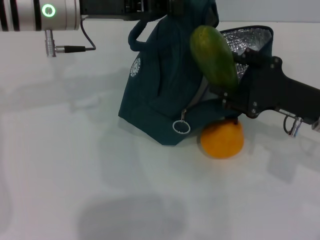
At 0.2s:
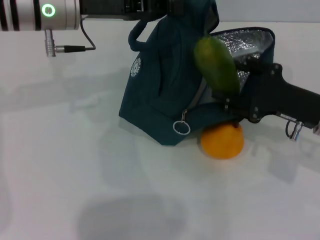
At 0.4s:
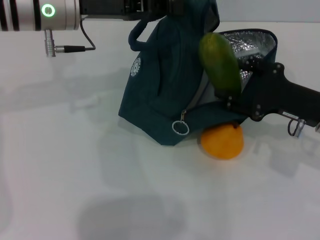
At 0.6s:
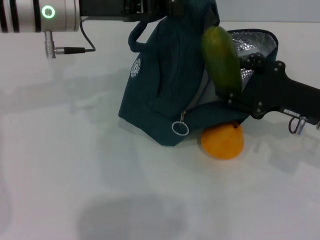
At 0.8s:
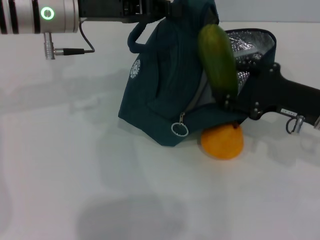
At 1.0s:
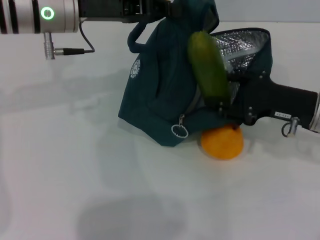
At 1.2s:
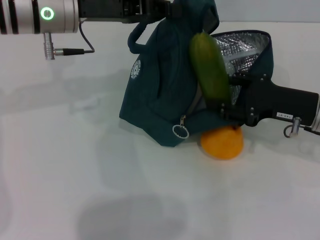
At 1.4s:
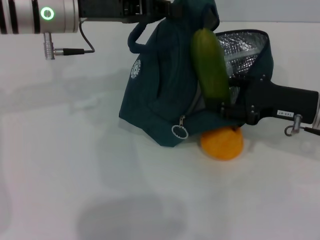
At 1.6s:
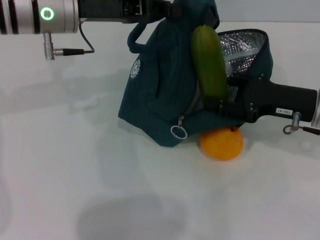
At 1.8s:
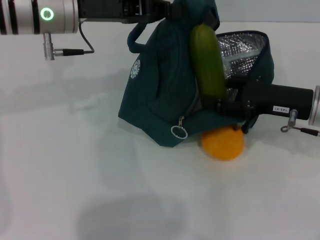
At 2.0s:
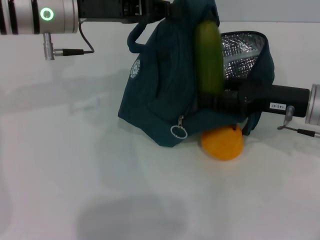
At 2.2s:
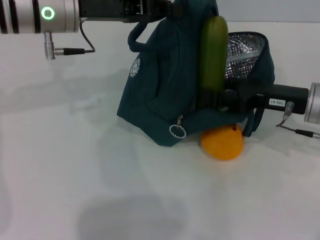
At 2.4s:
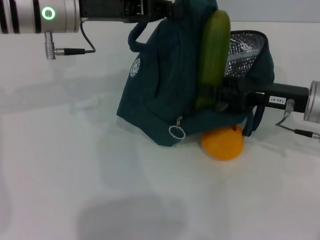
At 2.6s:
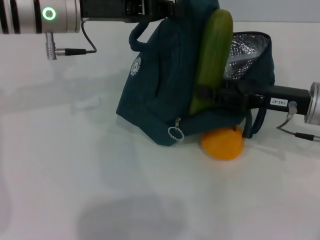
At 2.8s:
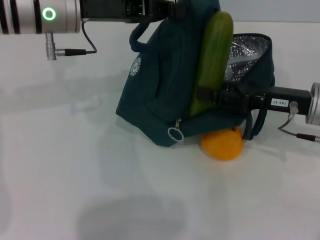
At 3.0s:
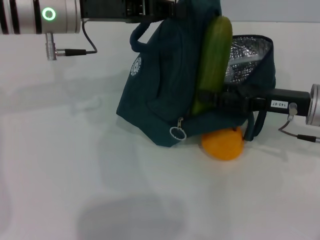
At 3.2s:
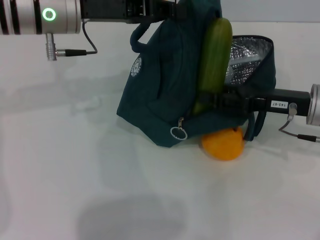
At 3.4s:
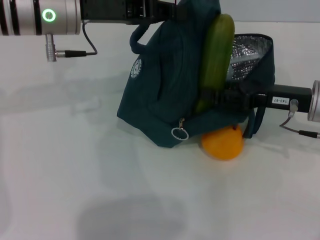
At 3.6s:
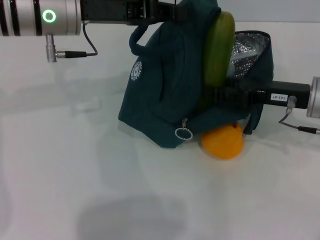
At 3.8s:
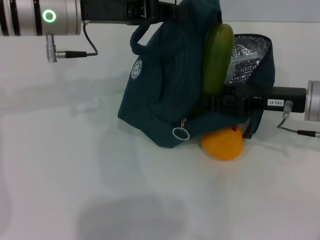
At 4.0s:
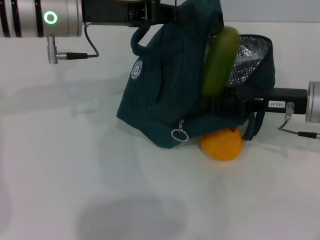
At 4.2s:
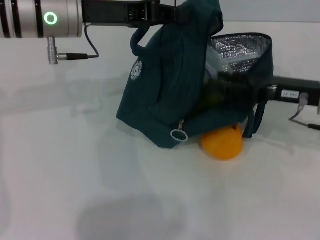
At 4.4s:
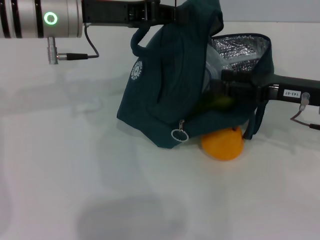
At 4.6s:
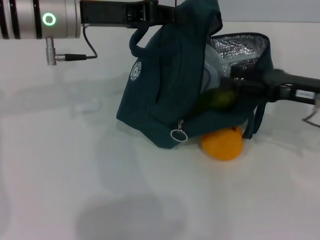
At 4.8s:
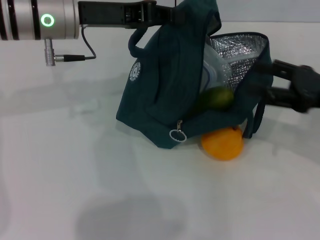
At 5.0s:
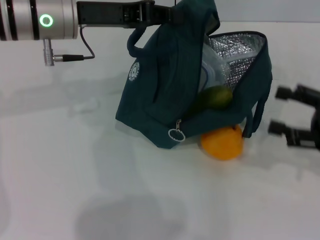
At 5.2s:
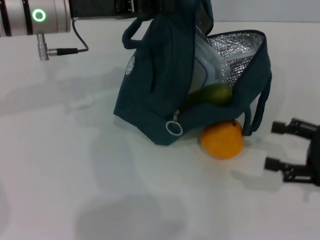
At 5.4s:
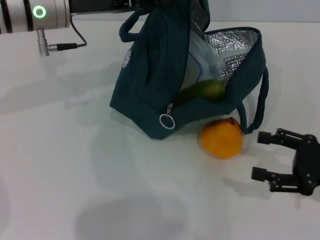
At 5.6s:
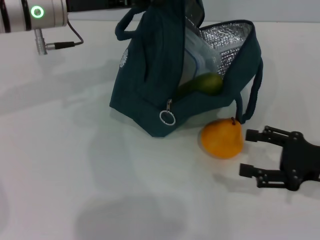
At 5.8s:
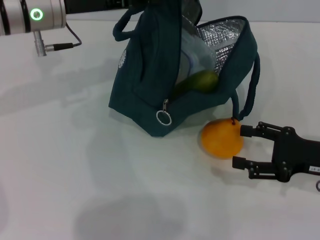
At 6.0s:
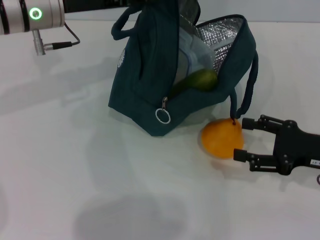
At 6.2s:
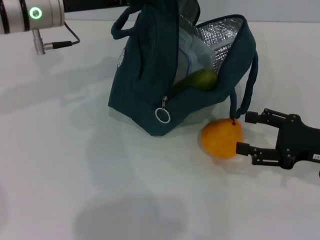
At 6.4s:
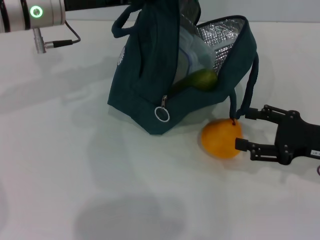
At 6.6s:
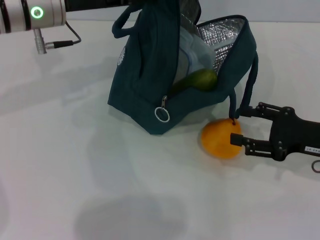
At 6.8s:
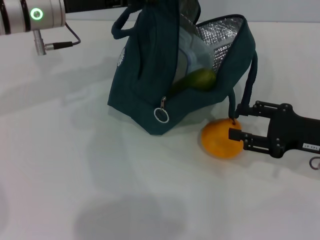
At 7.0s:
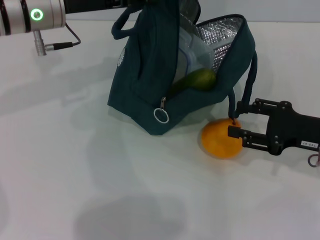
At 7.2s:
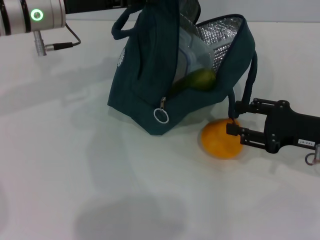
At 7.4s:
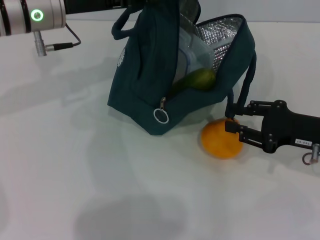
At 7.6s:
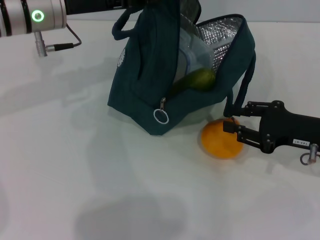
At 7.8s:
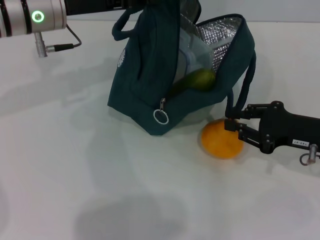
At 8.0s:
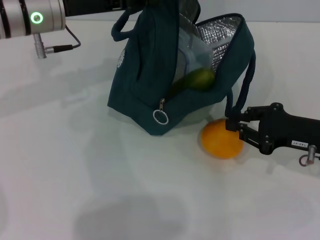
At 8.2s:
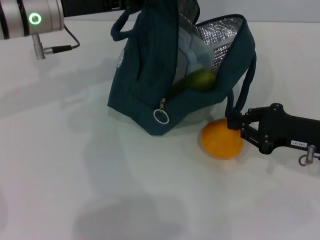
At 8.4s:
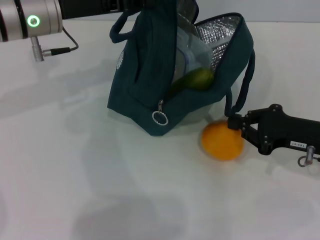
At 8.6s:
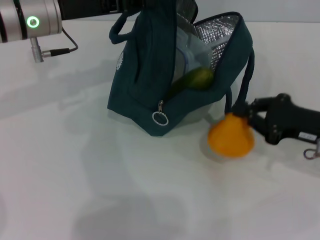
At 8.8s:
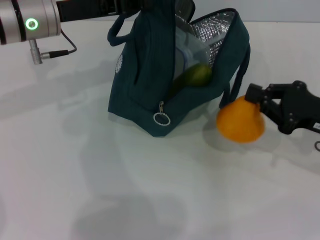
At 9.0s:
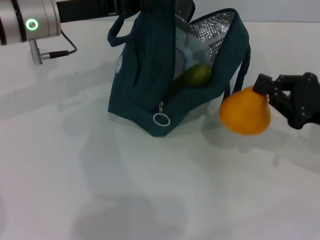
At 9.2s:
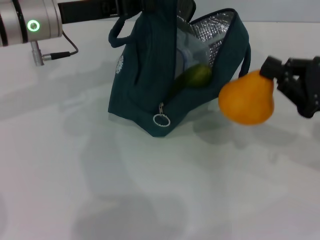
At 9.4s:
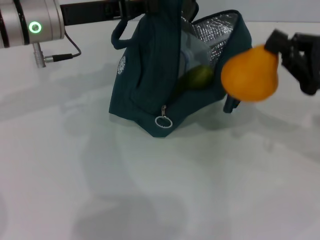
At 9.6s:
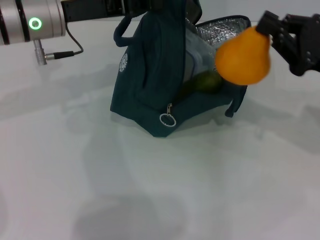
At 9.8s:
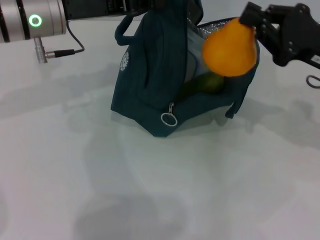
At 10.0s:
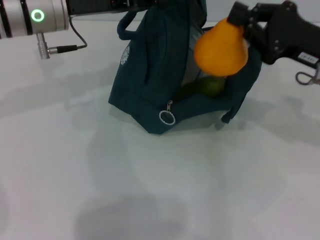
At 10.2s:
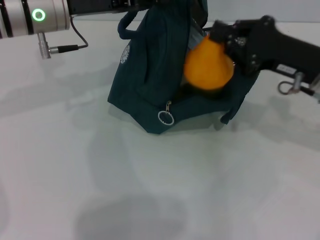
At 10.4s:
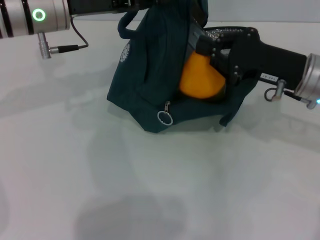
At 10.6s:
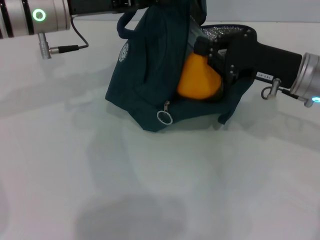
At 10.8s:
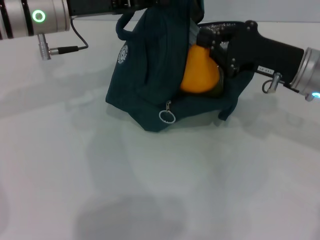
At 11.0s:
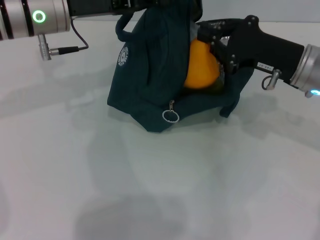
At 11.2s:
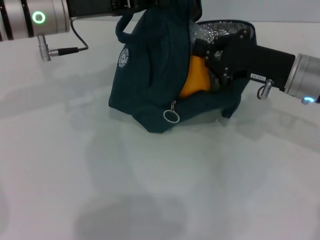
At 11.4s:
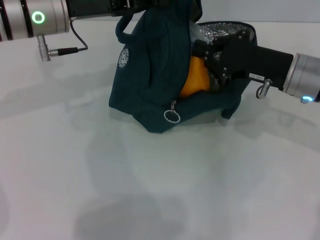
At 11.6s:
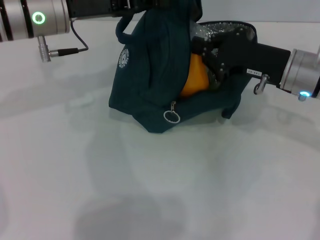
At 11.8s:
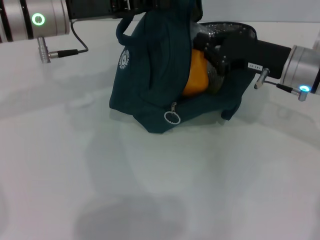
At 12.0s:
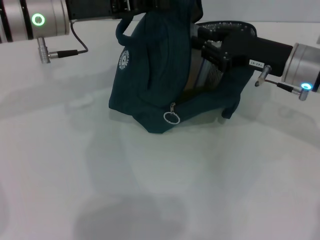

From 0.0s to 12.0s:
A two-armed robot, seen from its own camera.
Step, from 0.0s to 4.2s: Put the cucumber into the lunch bag with your right hand.
Step, from 4.4s to 8.4s: Grab the pear with your right hand.
From 3.0s to 4.4s: The grippers move only a little.
From 4.4s to 6.0s: The right gripper travels backward by approximately 5 cm.
From 6.0s to 7.6s: The right gripper closes.
From 7.6s to 9.0s: The right gripper closes up.
From 9.0s to 10.4s: The right gripper travels to the left and forward by approximately 10 cm.
From 10.4s to 12.0s: There are only small adjustments of the grippers.

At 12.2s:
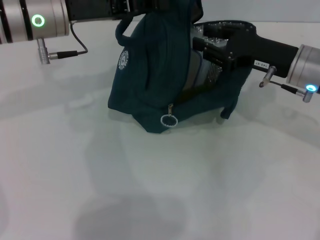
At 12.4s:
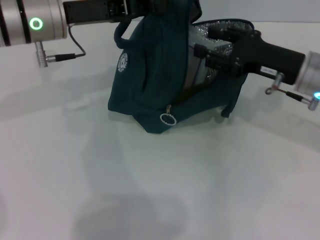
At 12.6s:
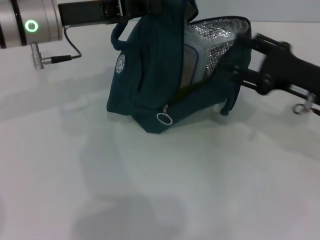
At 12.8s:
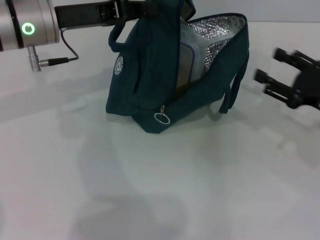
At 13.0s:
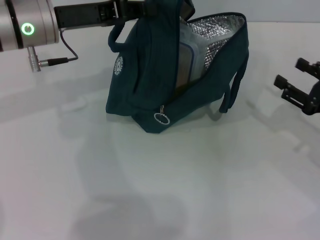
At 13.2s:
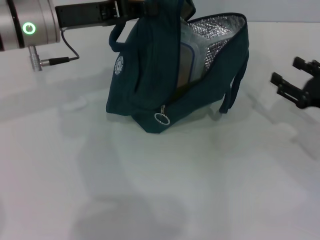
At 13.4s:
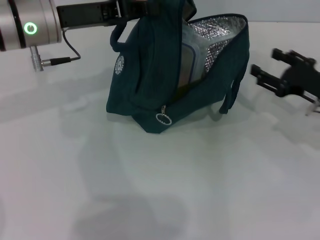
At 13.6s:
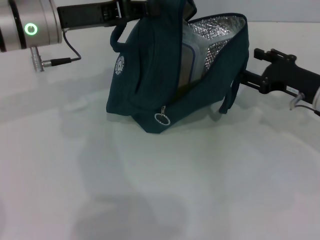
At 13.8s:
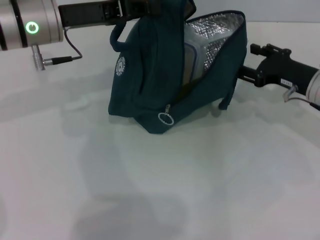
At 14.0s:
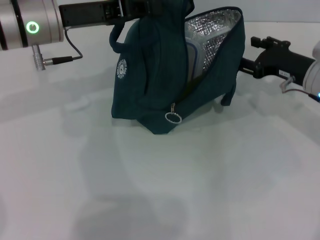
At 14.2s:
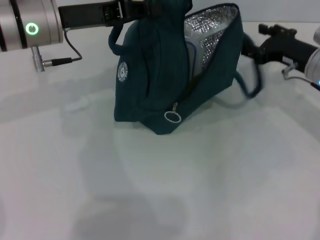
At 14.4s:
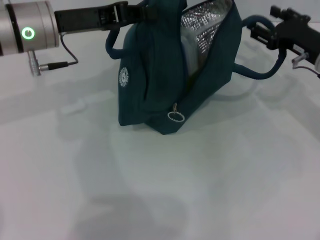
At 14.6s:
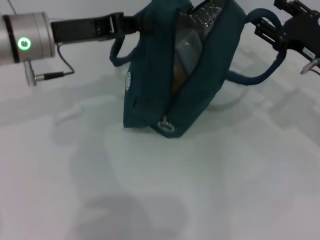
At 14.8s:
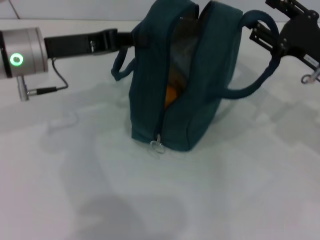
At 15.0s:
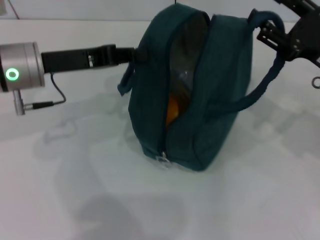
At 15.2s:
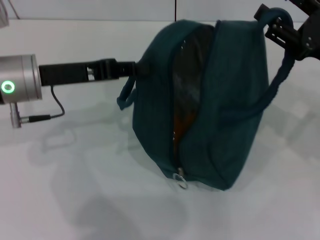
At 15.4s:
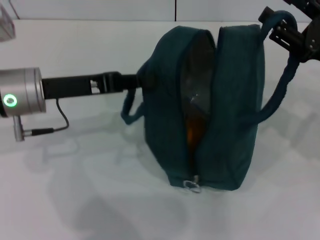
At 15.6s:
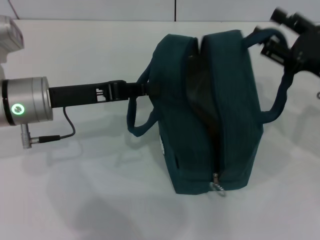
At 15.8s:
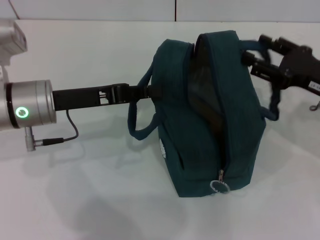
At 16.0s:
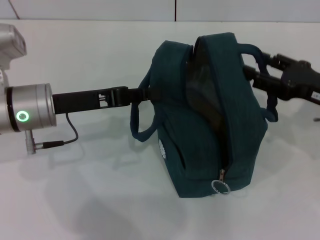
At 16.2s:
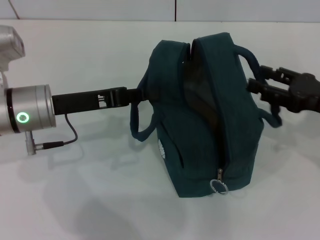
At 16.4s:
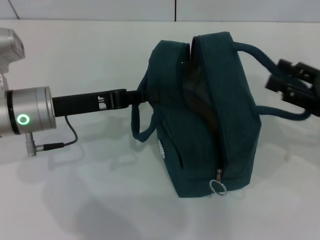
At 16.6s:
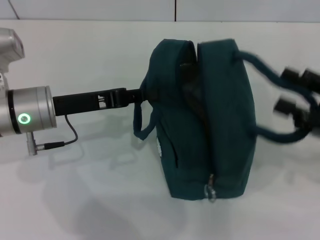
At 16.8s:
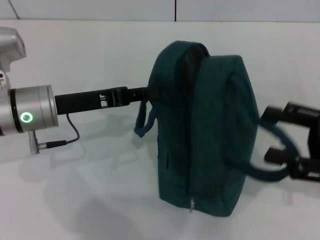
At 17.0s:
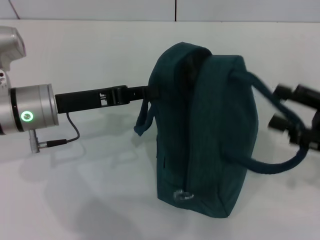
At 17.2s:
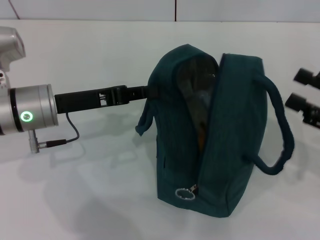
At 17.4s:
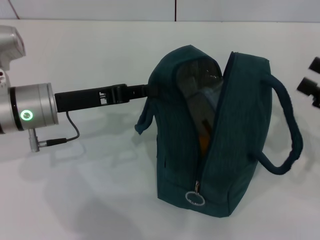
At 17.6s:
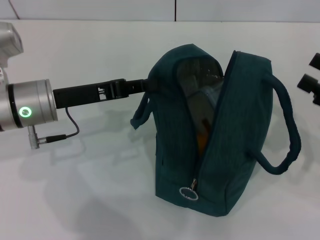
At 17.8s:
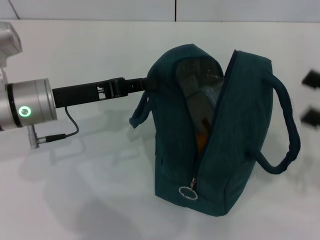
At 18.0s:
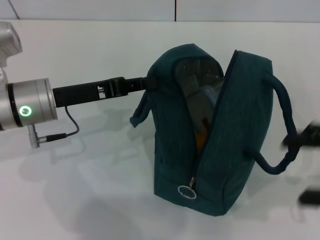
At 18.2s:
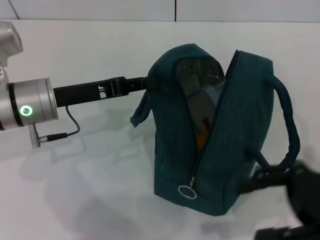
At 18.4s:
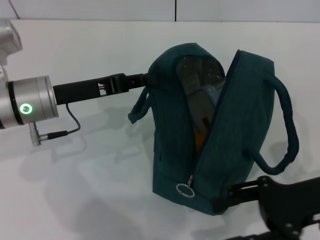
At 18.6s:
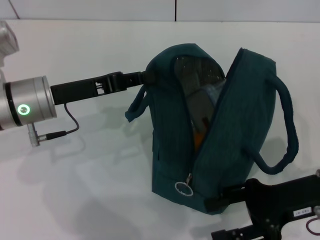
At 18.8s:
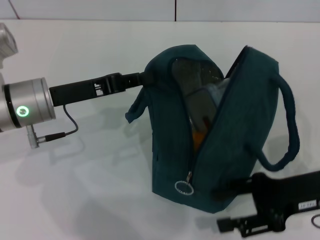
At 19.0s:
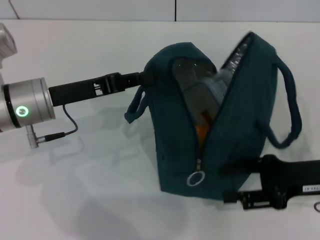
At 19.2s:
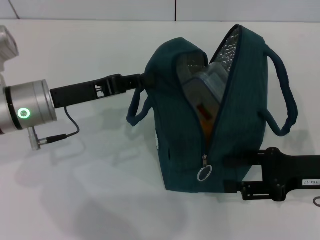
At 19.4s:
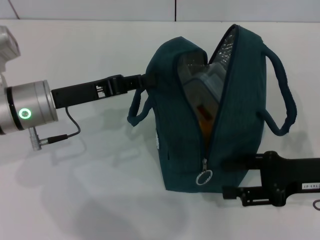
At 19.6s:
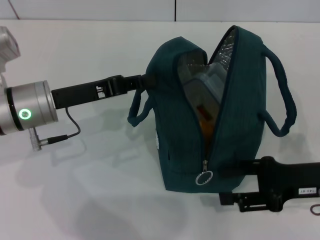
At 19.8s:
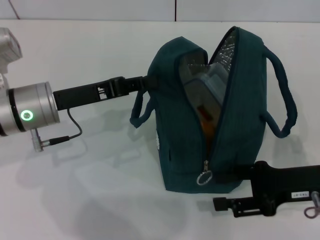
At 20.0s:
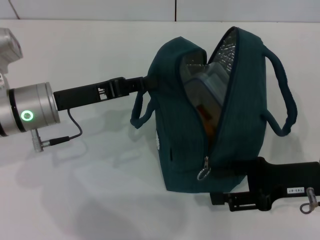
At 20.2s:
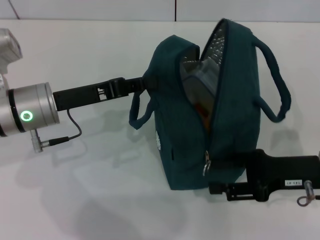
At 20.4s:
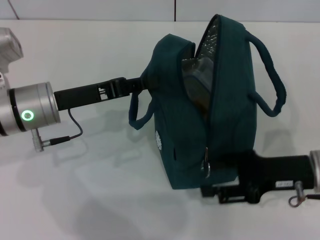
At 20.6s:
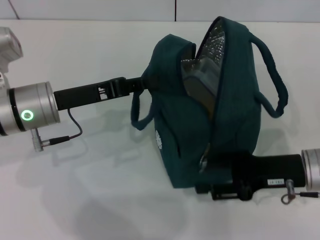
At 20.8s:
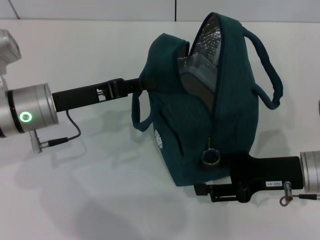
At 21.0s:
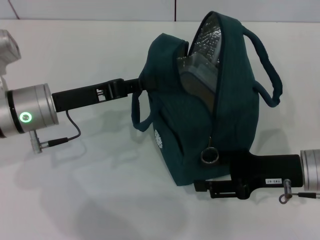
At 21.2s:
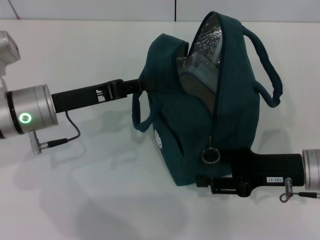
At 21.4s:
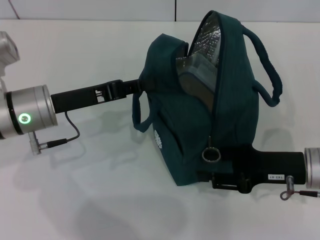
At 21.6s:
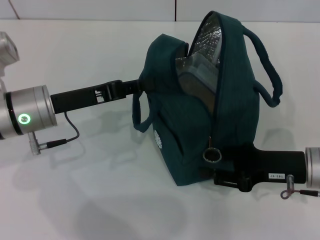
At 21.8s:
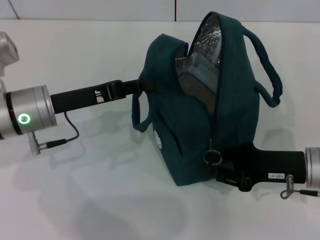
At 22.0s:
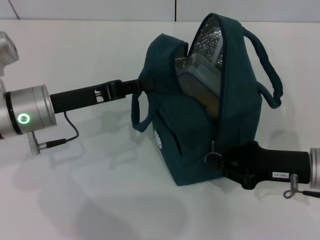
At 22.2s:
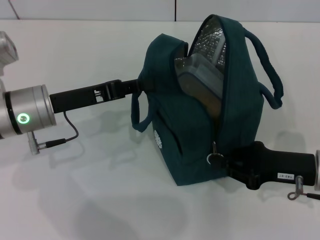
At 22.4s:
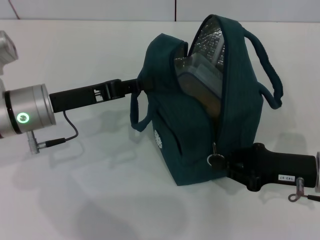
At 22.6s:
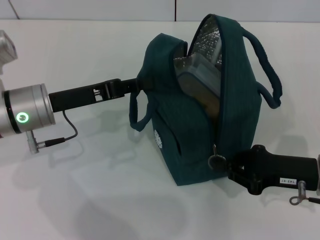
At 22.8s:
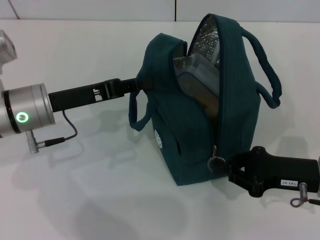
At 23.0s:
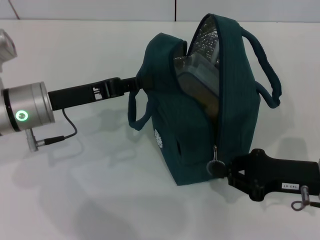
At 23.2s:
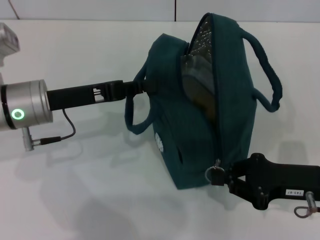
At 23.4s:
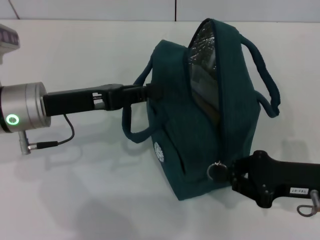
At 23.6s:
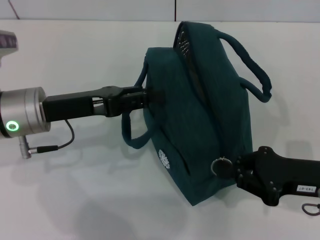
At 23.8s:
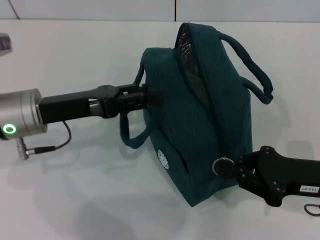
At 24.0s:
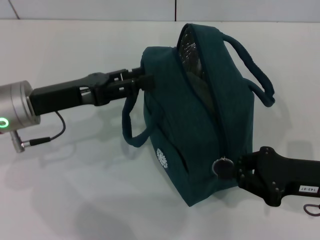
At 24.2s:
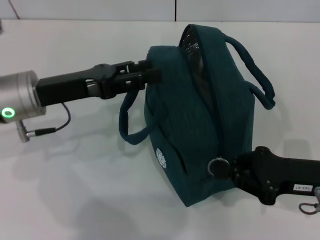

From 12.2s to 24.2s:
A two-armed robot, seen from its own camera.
Step, from 12.2s to 17.0s: Hold the lunch bag with your right hand.
Step, from 17.2s to 23.8s: Hold the lunch bag with your left hand.
From 12.2s to 13.8s: The right gripper opens its fingers.
From 13.8s to 15.2s: The left gripper shifts about 5 cm backward. Meanwhile the right gripper travels upward and backward by about 10 cm.
From 15.2s to 16.6s: The right gripper goes about 5 cm backward.
From 18.2s to 19.8s: The right gripper travels downward by some 5 cm.
From 19.8s to 21.2s: The grippers stay close to where they were, moving slightly.
From 21.2s to 22.6s: The right gripper closes.
From 22.6s to 24.2s: The left gripper opens up.
